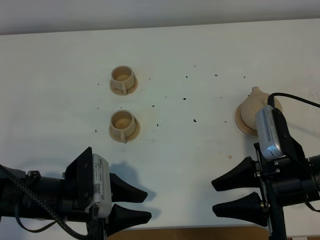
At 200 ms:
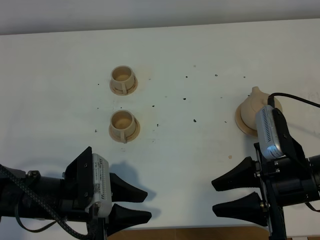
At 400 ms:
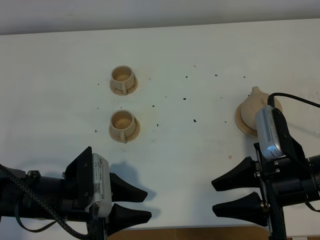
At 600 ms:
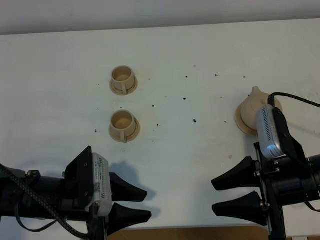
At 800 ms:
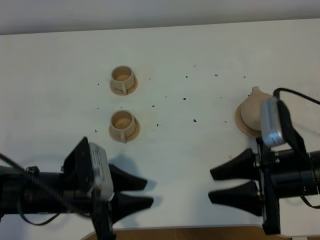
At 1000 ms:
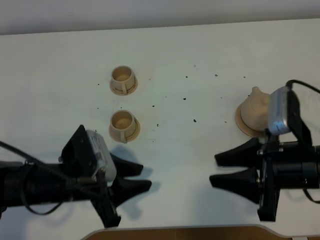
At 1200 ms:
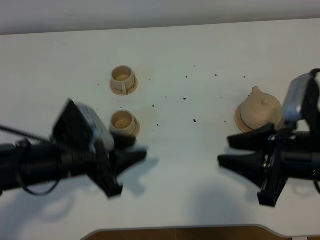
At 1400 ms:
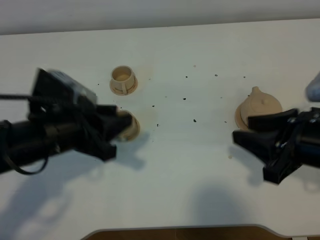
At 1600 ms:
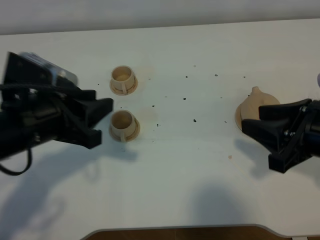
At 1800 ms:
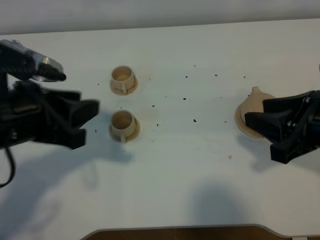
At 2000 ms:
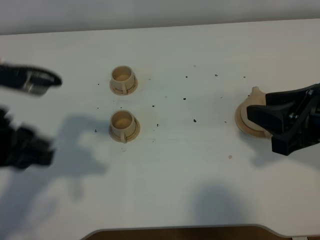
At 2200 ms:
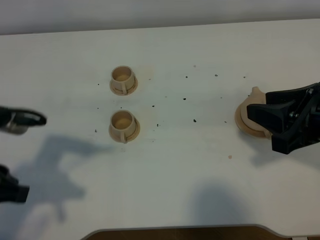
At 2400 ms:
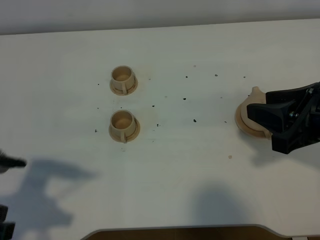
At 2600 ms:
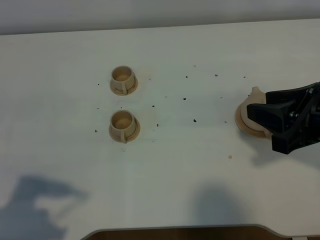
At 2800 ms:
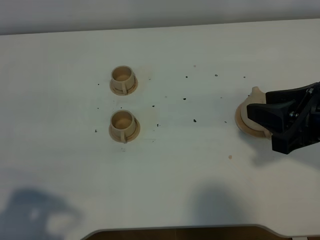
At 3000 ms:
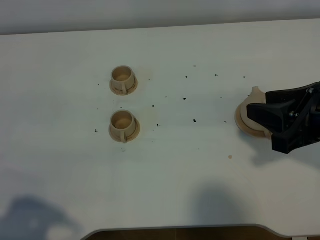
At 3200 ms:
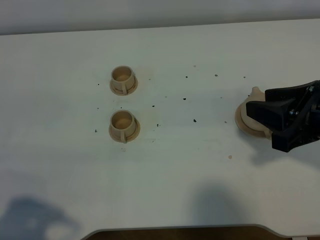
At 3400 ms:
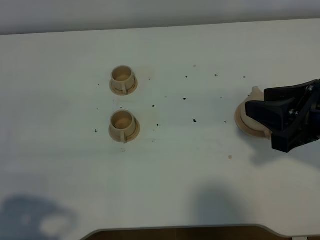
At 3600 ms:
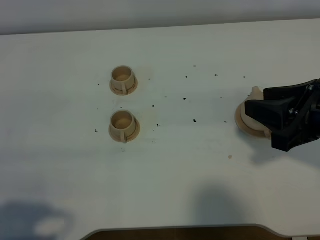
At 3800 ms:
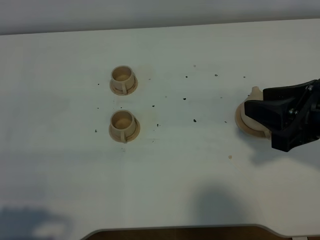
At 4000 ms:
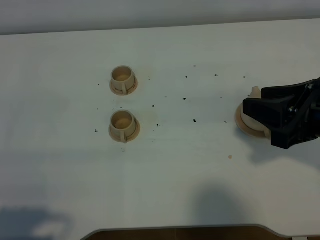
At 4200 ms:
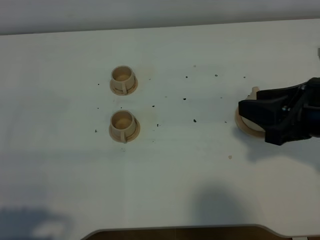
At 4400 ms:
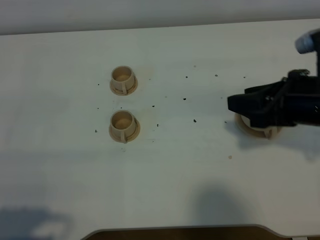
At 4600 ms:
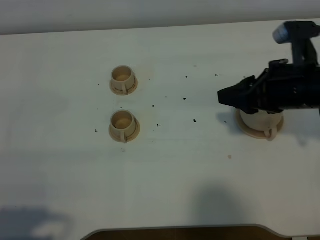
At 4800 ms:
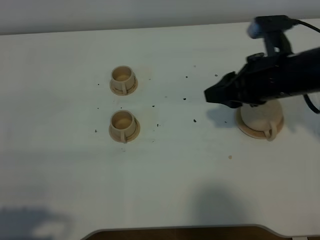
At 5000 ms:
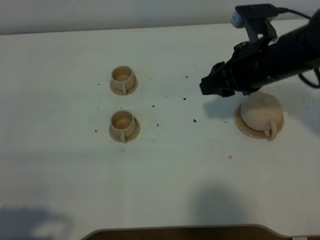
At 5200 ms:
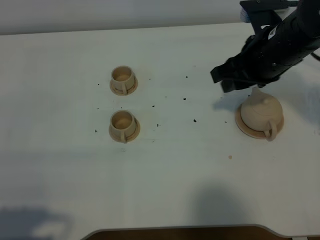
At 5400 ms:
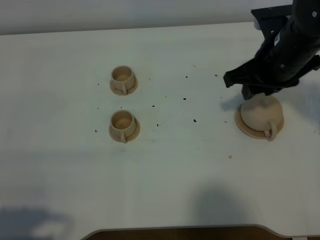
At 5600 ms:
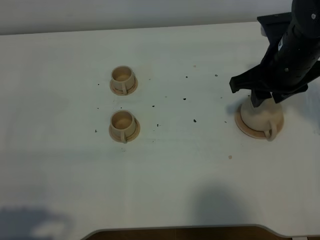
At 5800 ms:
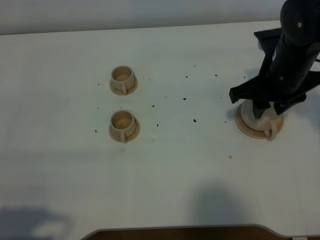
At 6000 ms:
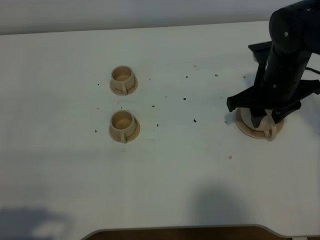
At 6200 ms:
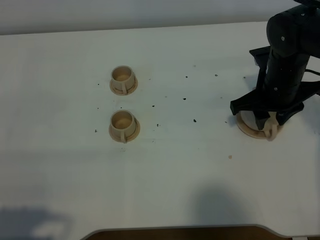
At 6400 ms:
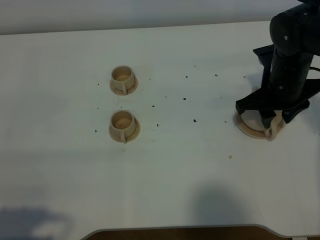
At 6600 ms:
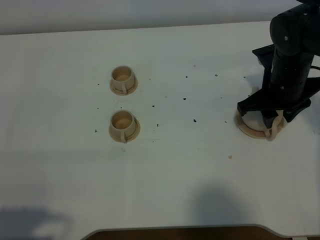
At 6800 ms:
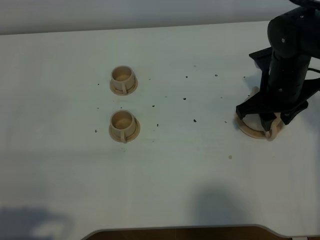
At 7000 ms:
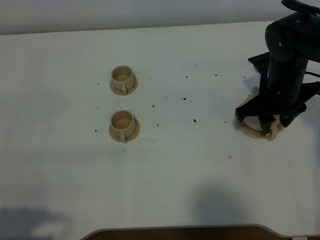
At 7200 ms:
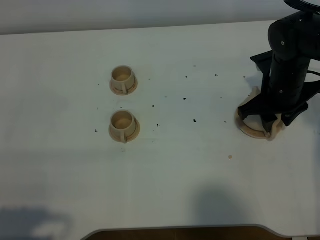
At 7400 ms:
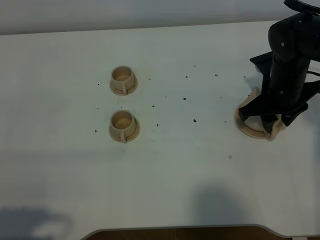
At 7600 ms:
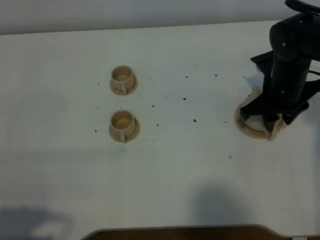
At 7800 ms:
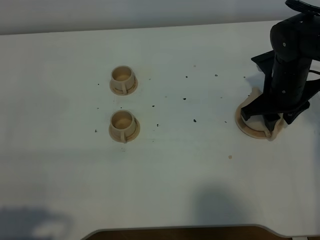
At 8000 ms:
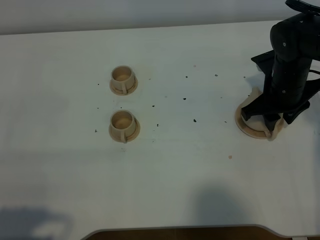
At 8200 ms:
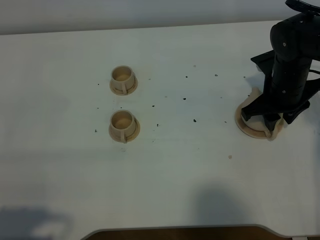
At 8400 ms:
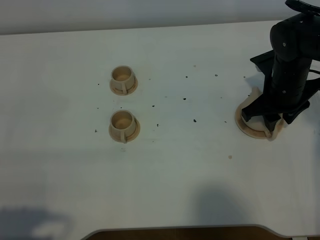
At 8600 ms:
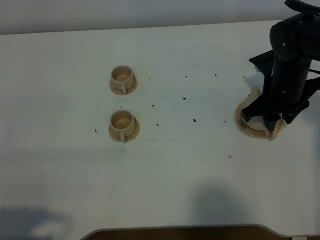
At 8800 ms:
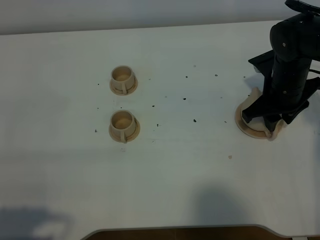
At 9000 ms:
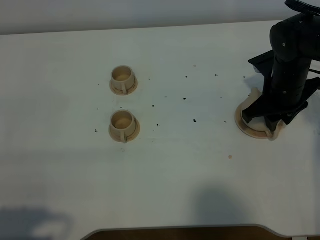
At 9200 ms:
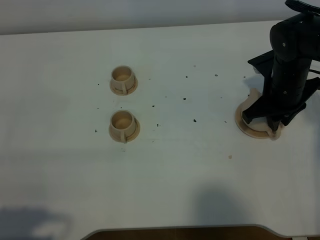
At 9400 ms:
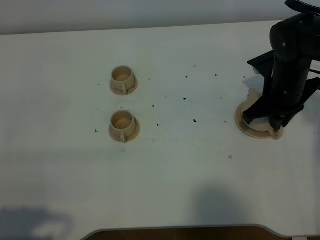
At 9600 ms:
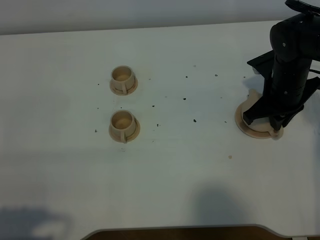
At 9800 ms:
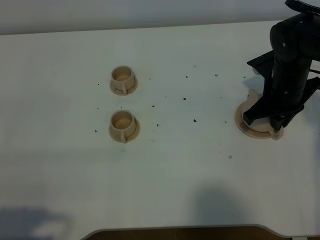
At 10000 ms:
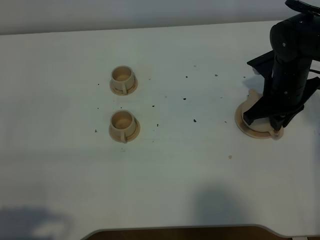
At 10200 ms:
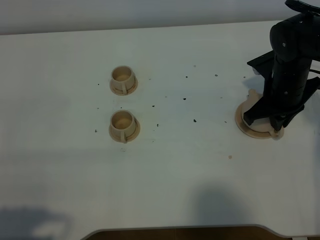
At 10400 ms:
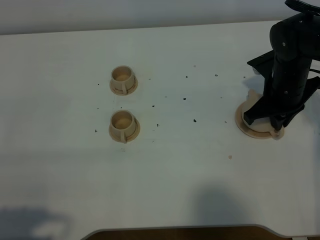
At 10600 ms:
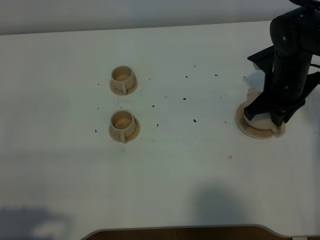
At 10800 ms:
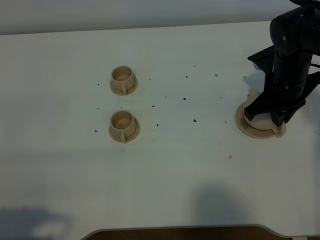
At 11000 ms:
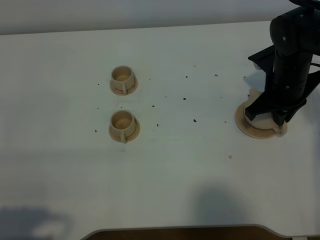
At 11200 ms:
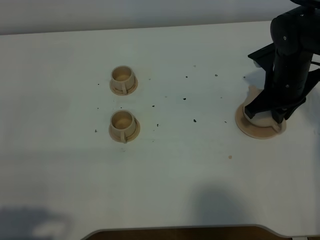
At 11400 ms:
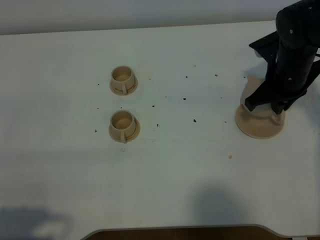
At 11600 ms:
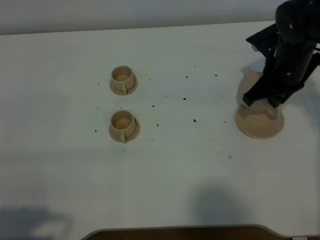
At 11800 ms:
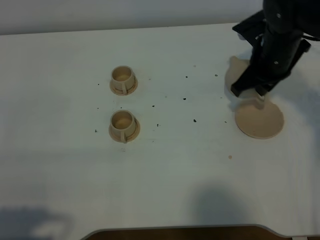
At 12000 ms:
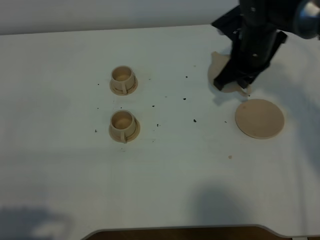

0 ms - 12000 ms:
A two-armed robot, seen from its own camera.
Task of the whole recording: grasp the brown teapot and pour the tea into the two brown teacups one by one, put the brown teapot back in its original place.
Step, 0 ms - 11400 ms: Pick up the teapot with the right gripper.
0 ms - 1600 ms: The right gripper heads upward, covering about 10 cm. The left gripper is displaced upward by approximately 10 cm.
1600 ms - 3000 ms: The left gripper goes some 20 cm backward and to the left.
3000 ms - 4400 ms: The right gripper travels forward by roughly 5 cm.
4400 ms - 6000 ms: The right gripper heads forward and downward, covering approximately 10 cm.
6000 ms - 7600 ms: The grippers stay close to where they were, moving slightly.
7600 ms - 9000 ms: Both grippers stay put.
9000 ms - 10400 ms: The right gripper closes up.
10400 ms - 12000 ms: The right gripper shifts about 10 cm to the left and forward.

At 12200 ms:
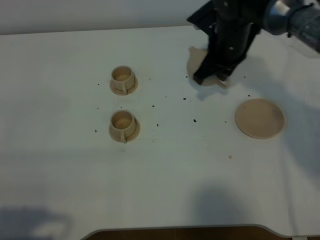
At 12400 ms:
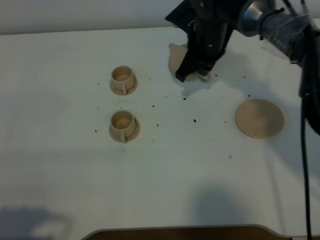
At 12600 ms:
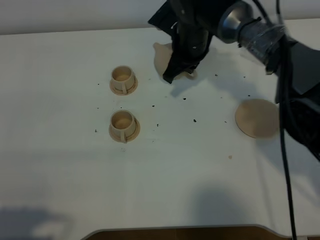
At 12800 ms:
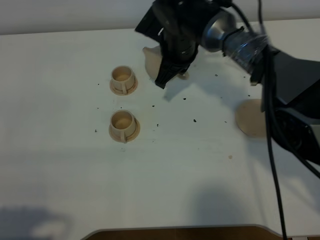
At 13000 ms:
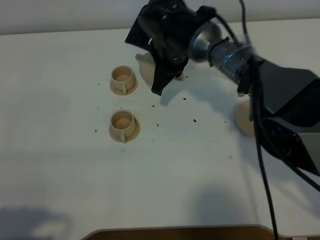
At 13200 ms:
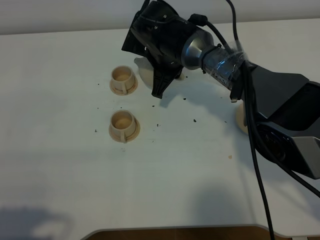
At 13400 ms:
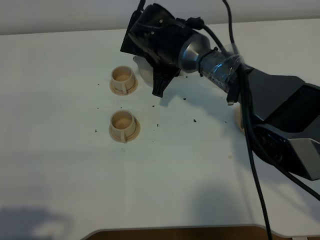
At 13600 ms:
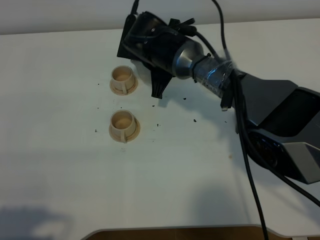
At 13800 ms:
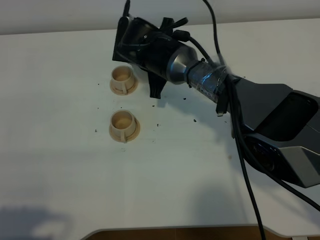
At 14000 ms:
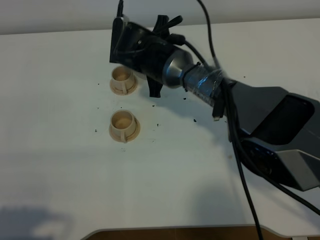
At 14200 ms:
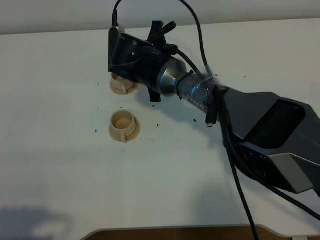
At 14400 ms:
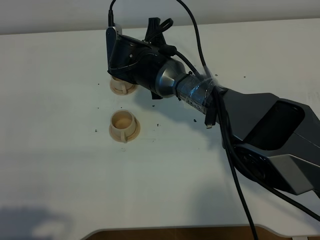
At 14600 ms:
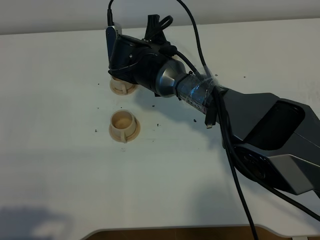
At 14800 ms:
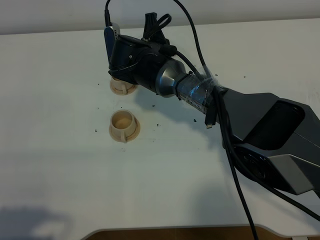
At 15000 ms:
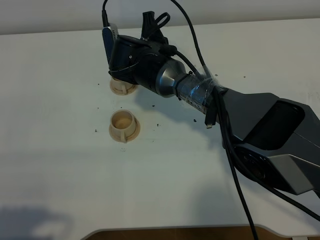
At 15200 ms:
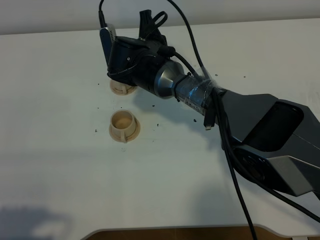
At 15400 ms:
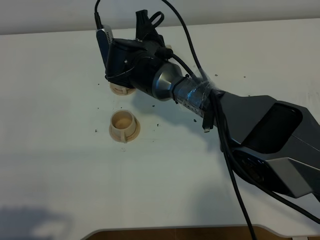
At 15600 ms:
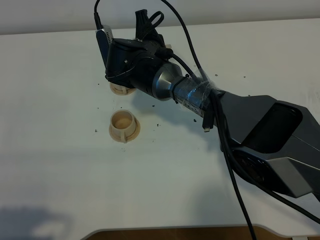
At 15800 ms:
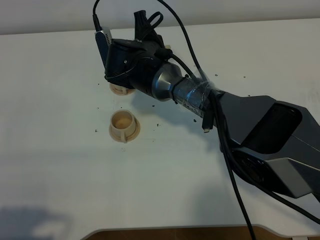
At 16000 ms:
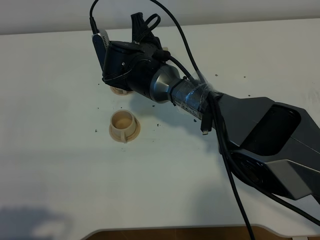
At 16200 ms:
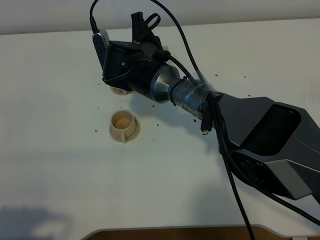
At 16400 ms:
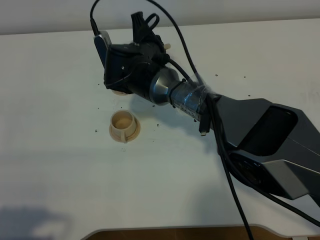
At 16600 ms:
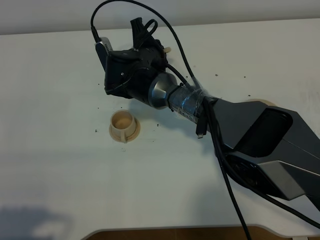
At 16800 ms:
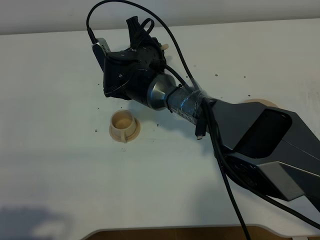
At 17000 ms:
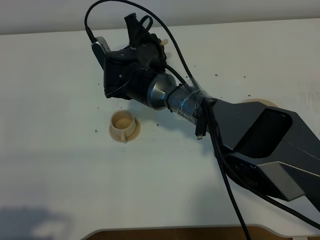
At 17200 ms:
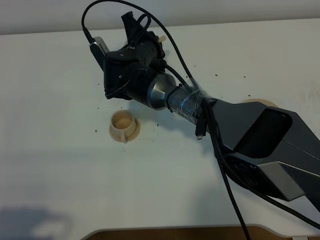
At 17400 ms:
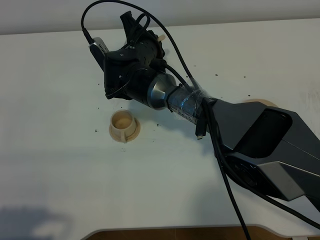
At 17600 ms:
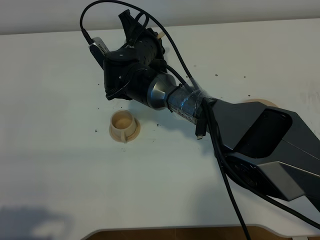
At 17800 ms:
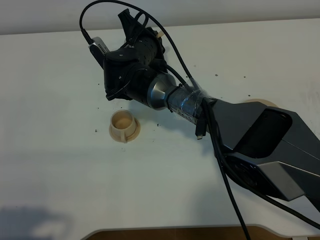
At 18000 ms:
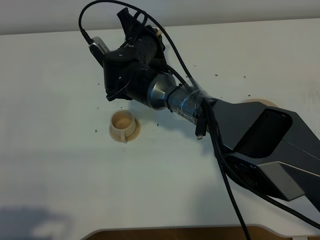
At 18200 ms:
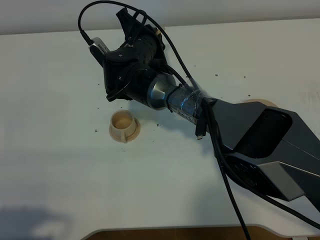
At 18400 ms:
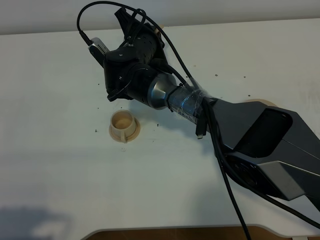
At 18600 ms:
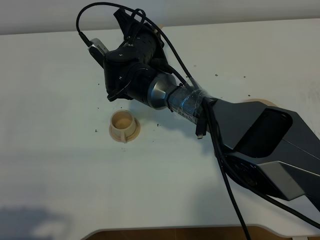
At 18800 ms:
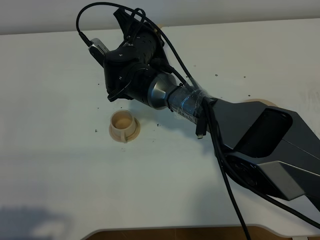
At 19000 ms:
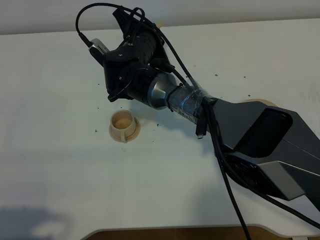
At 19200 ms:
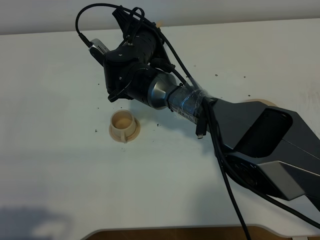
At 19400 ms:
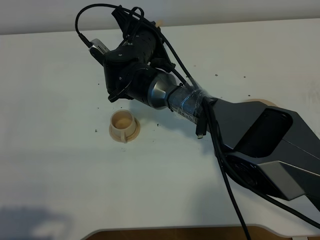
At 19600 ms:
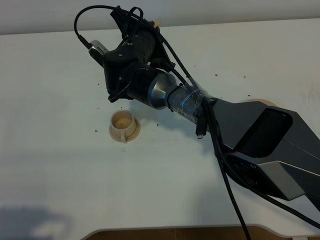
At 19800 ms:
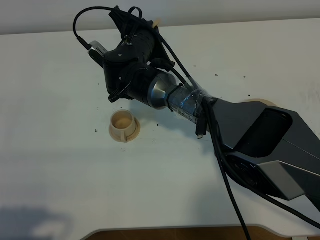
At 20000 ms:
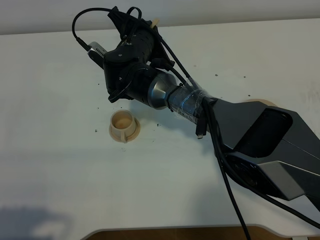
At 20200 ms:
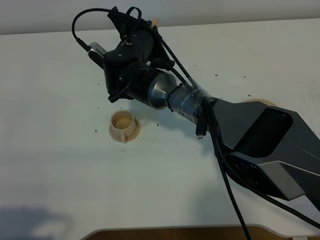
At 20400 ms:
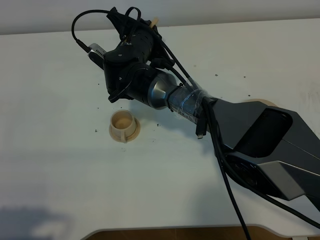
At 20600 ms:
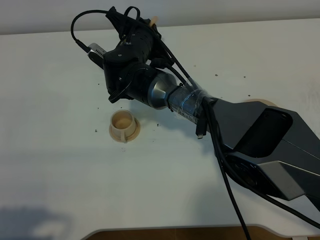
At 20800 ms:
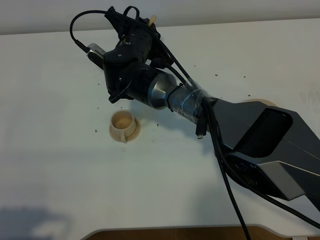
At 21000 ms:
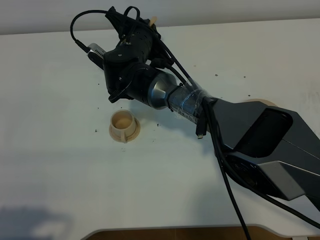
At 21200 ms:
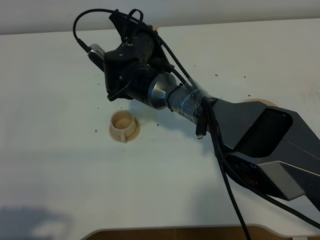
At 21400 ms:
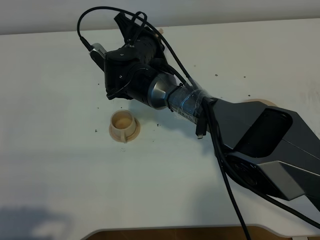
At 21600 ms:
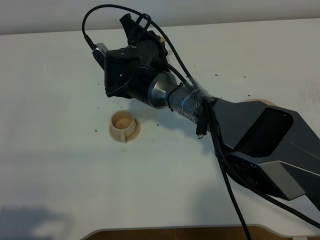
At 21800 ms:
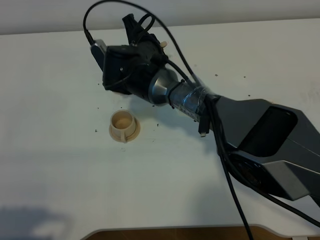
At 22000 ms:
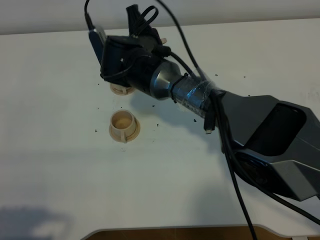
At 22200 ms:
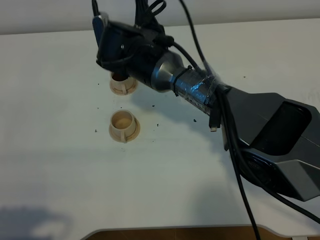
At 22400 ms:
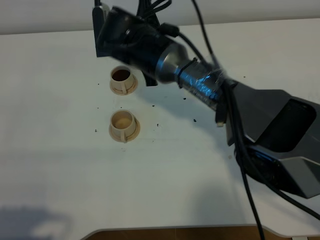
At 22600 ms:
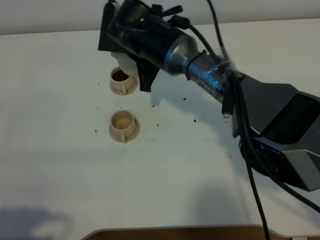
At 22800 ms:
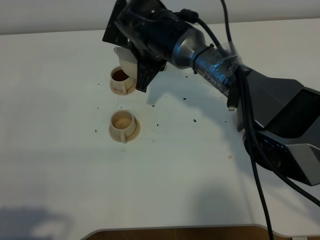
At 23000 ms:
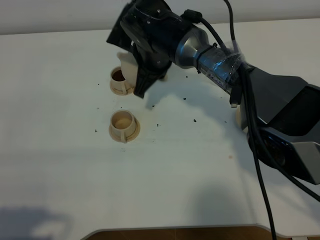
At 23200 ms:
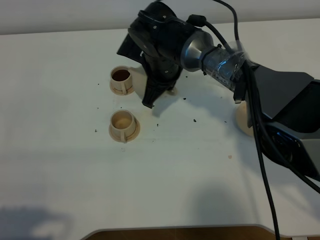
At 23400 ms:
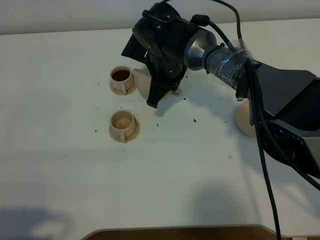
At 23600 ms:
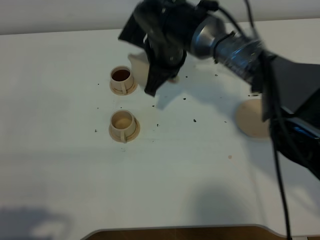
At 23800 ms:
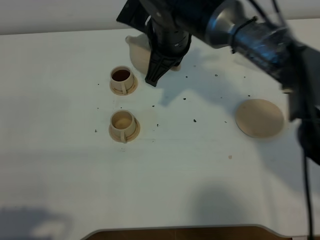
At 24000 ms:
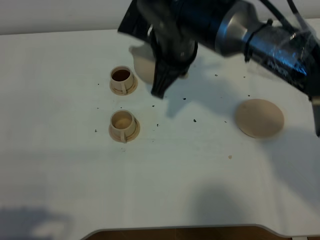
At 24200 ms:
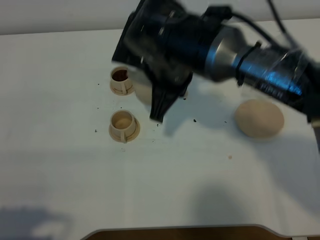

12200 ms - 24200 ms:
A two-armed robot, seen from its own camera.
Task of the whole recording: grasp the brown teapot and pour the tea into the two brown teacups one by one, put the brown teapot back in its original place.
Step, 12200 ms - 22200 ms: Pour tea into the teacup with the right gripper.
12200 ms - 13800 ms: The right gripper is displaced to the left by about 15 cm.
15200 ms - 16600 ms: There are only small adjustments of the grippers.
16600 ms - 18200 ms: The grippers make only small movements.
18200 ms - 19800 ms: The grippers move only a little.
19800 ms - 21200 ms: Neither gripper changes place.
21200 ms - 22600 ms: The right gripper changes place by some 5 cm.
22600 ms - 24200 ms: The right gripper shifts about 10 cm backward.
